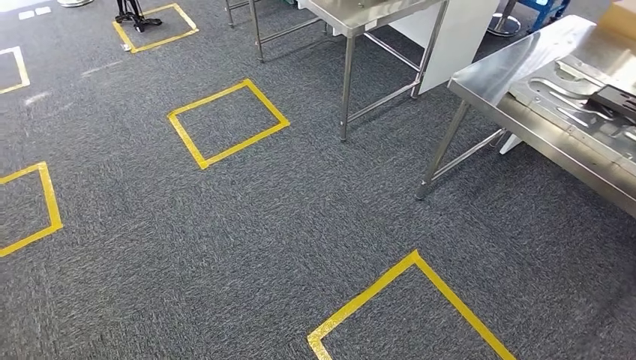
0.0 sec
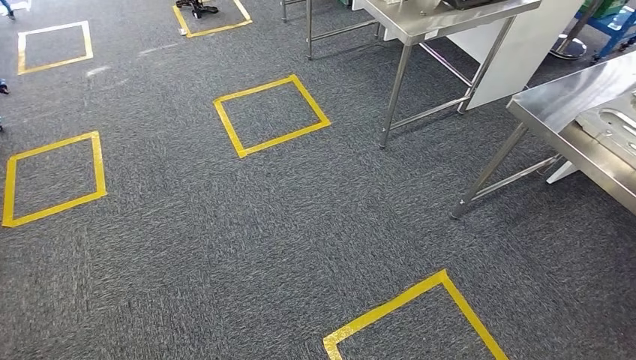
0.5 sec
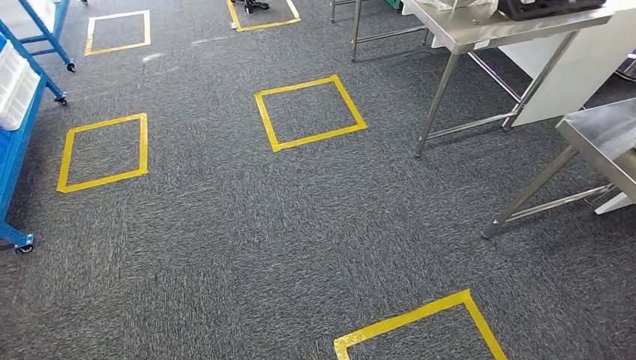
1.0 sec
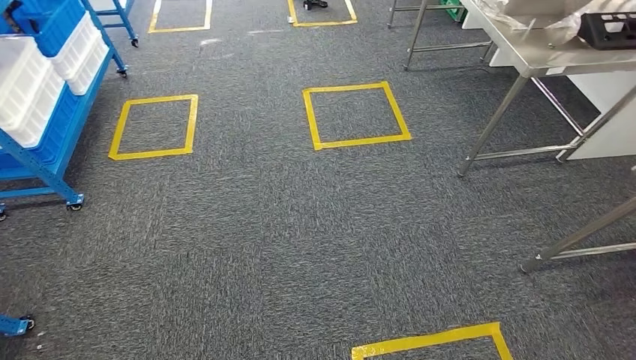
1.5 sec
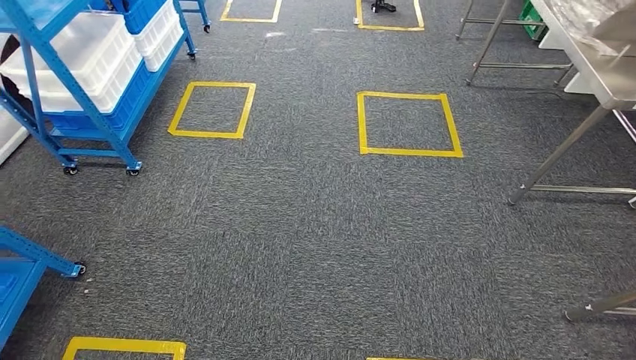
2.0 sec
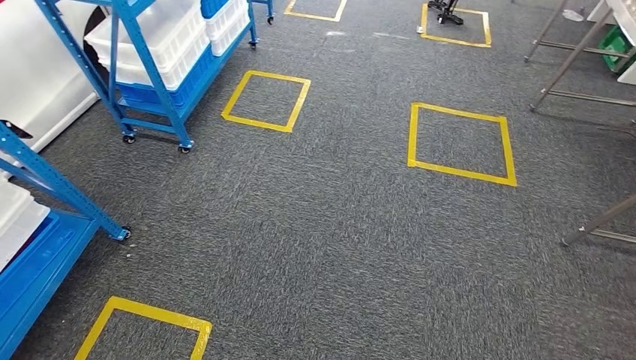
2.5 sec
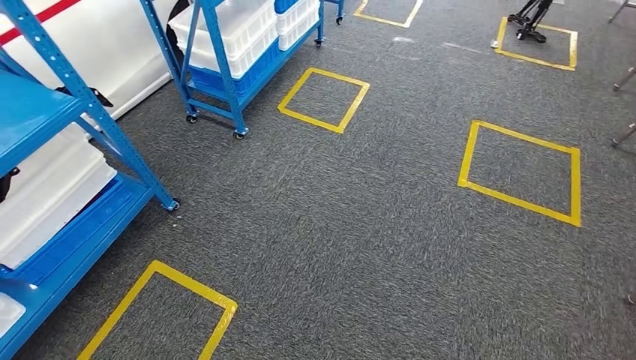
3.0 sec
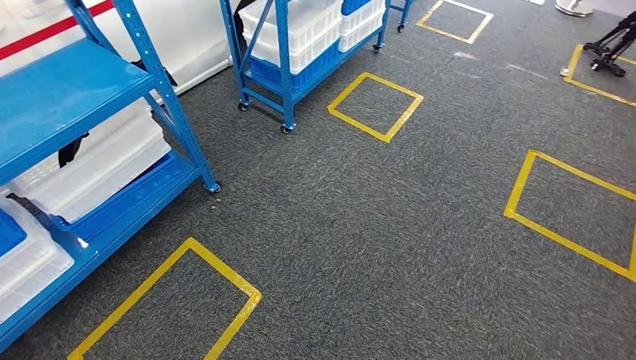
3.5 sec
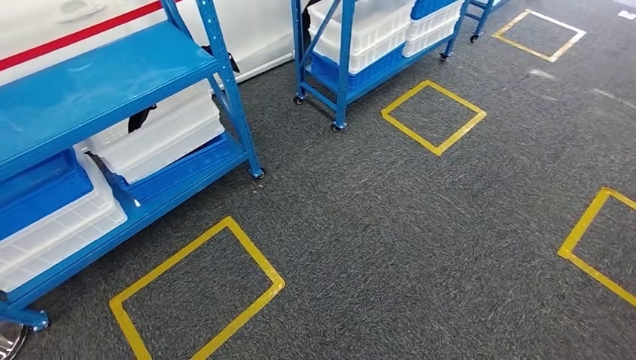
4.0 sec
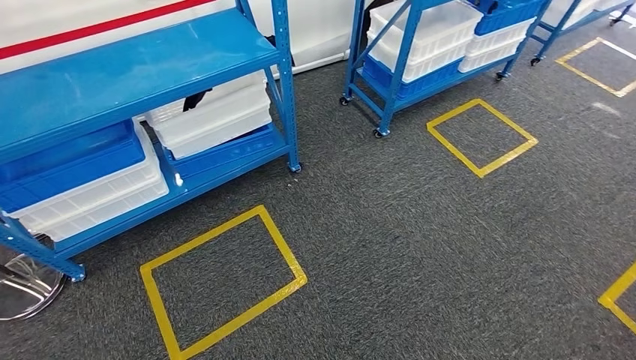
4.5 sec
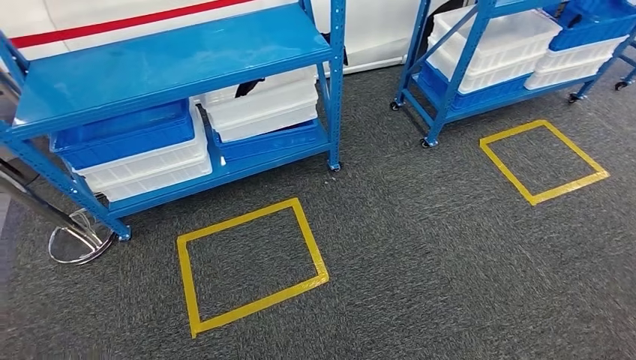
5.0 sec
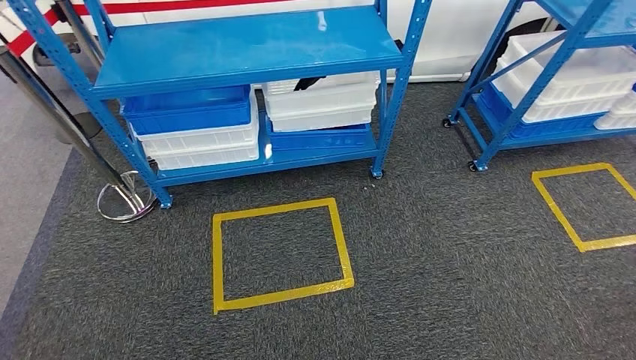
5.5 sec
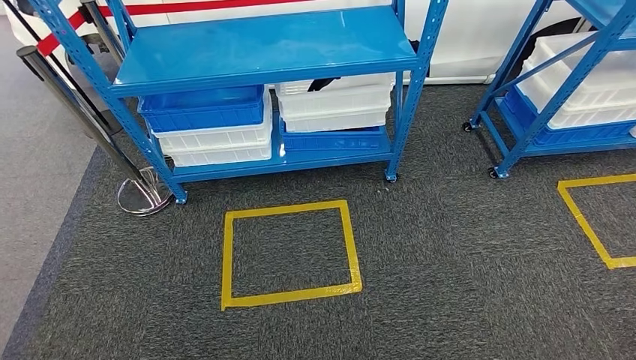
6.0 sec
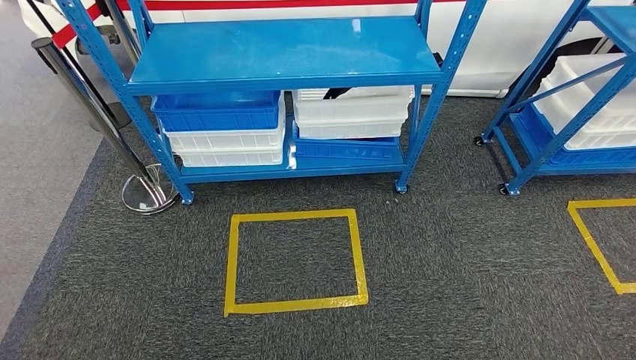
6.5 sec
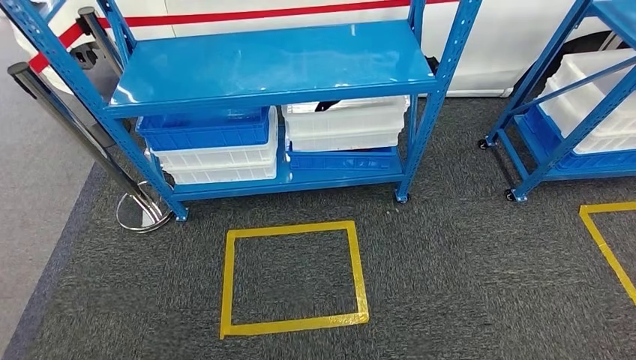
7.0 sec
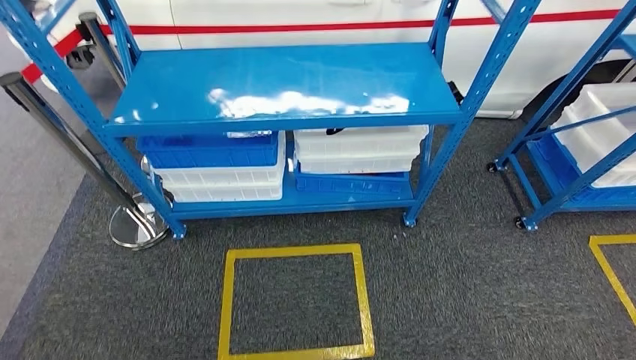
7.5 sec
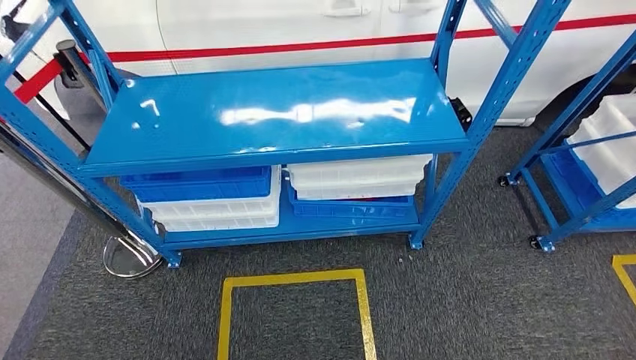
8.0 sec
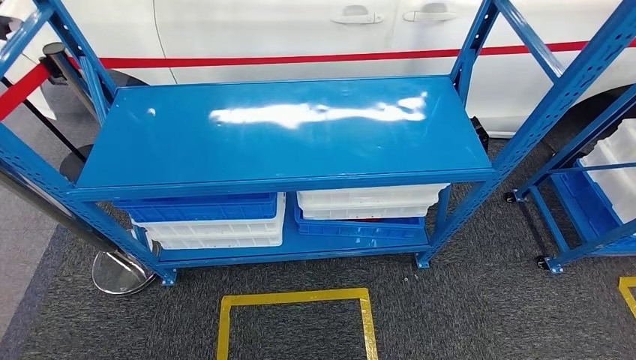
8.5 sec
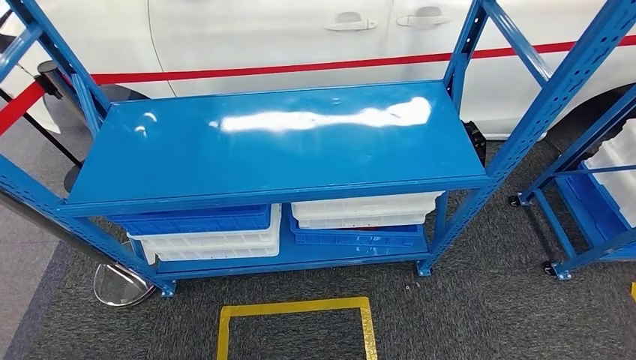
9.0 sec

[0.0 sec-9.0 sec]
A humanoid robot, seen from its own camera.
Step, 0.0 sec to 9.0 sec: Return to the initial position at the shelf.
